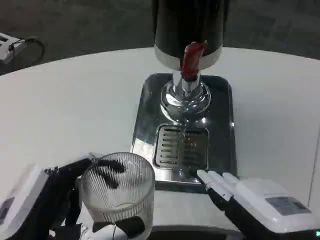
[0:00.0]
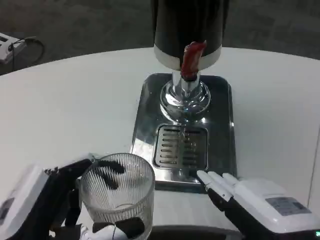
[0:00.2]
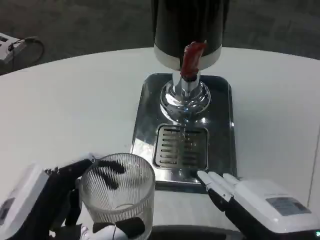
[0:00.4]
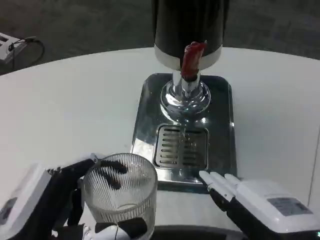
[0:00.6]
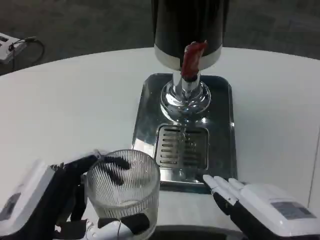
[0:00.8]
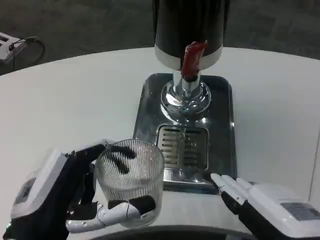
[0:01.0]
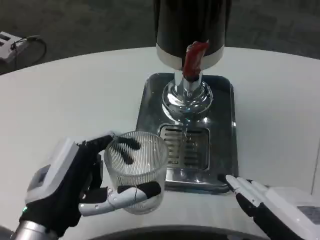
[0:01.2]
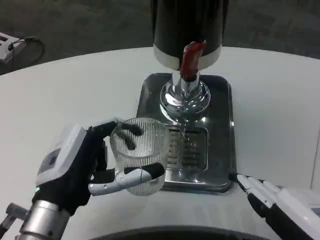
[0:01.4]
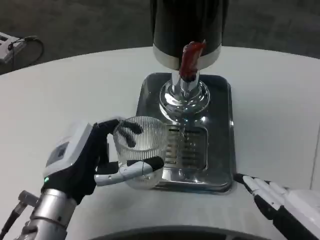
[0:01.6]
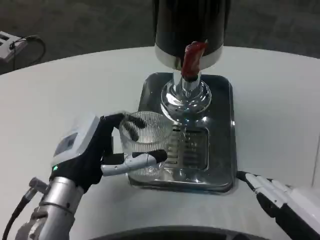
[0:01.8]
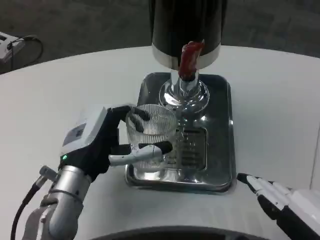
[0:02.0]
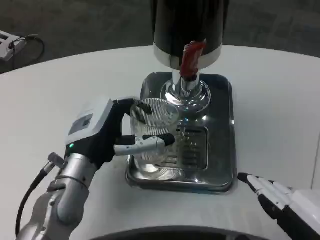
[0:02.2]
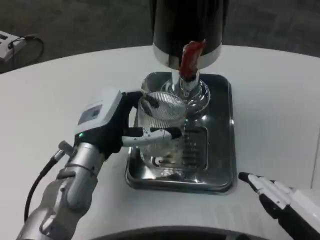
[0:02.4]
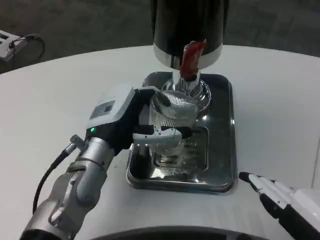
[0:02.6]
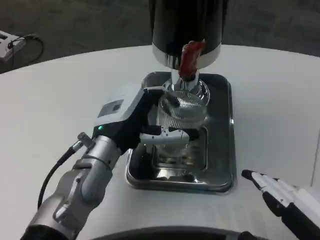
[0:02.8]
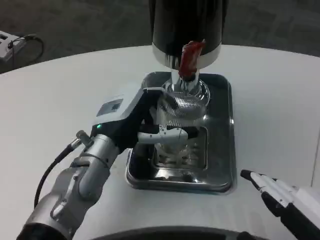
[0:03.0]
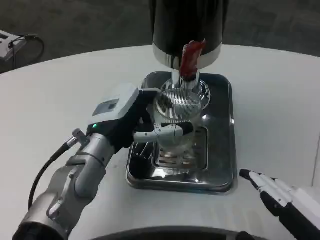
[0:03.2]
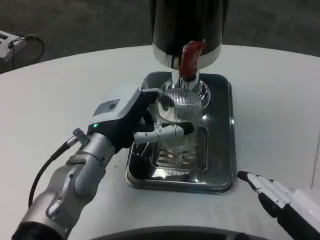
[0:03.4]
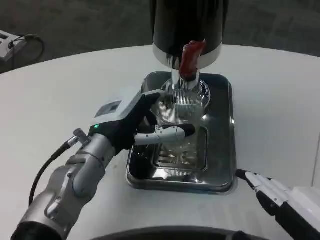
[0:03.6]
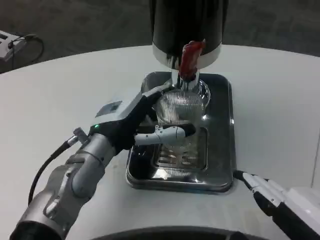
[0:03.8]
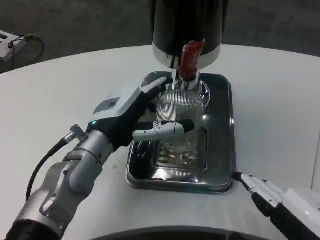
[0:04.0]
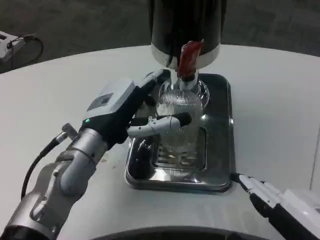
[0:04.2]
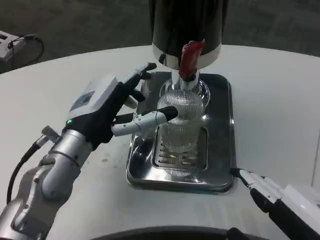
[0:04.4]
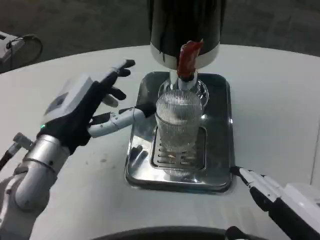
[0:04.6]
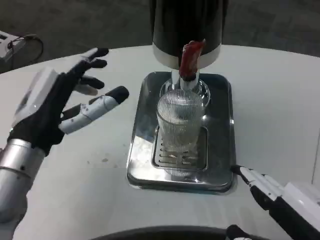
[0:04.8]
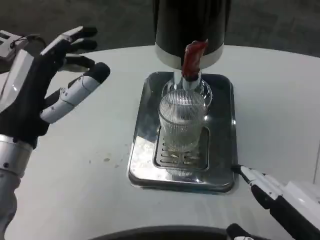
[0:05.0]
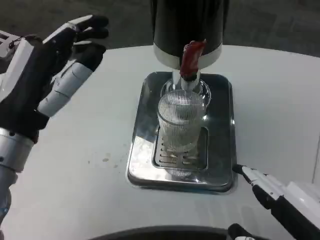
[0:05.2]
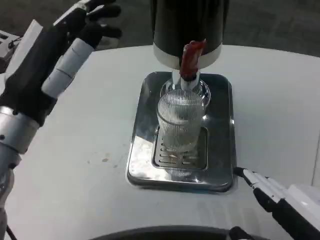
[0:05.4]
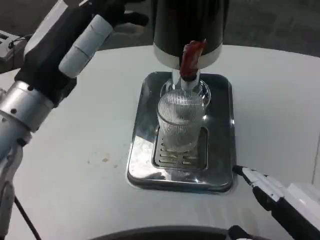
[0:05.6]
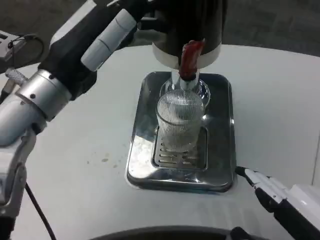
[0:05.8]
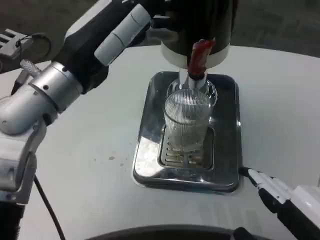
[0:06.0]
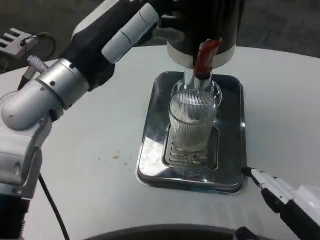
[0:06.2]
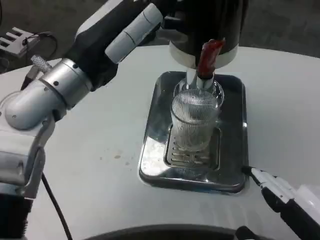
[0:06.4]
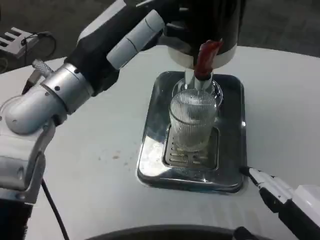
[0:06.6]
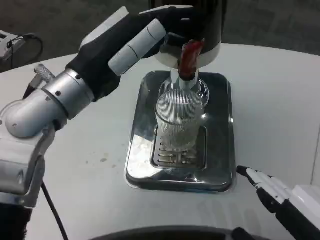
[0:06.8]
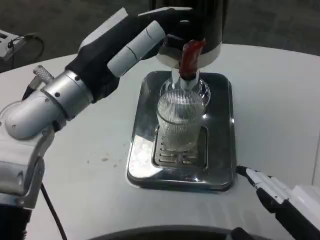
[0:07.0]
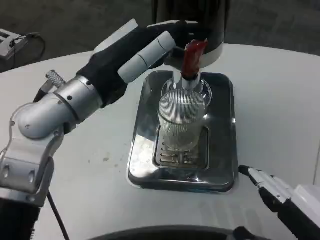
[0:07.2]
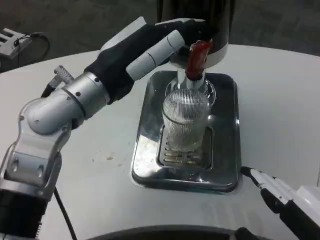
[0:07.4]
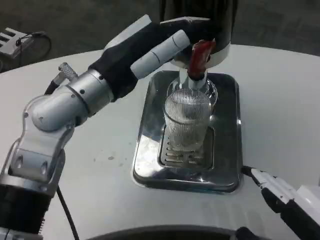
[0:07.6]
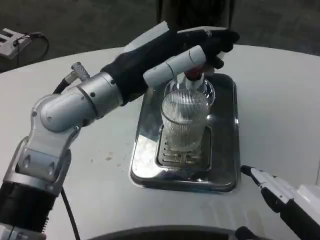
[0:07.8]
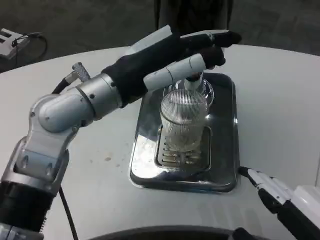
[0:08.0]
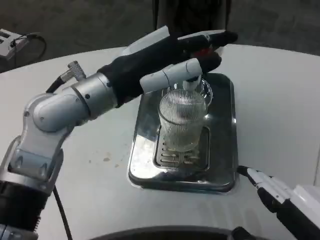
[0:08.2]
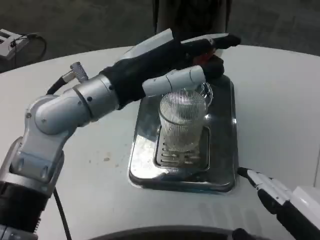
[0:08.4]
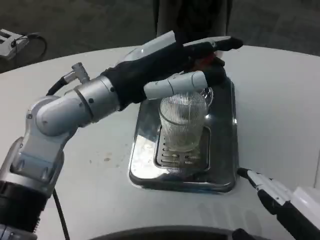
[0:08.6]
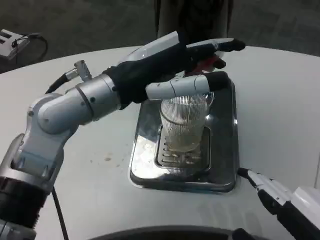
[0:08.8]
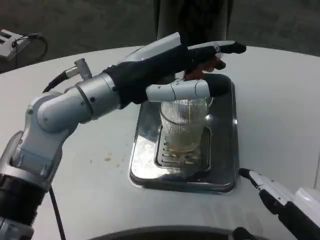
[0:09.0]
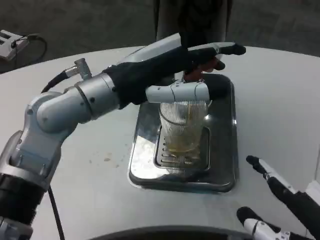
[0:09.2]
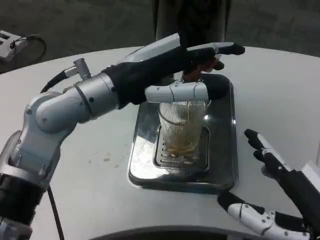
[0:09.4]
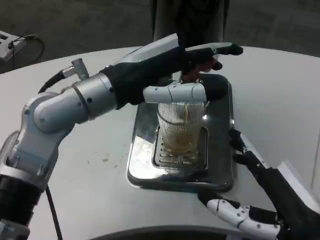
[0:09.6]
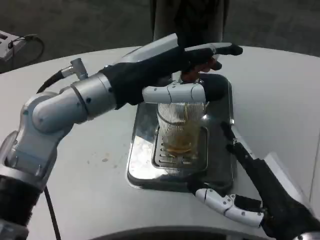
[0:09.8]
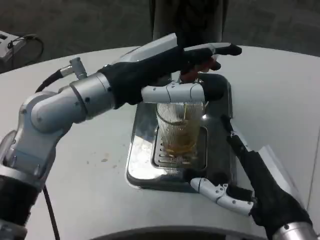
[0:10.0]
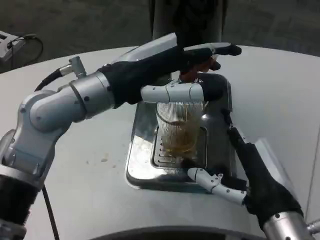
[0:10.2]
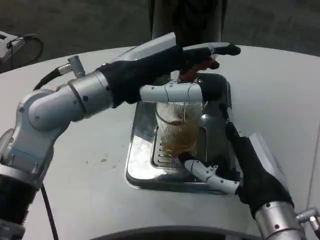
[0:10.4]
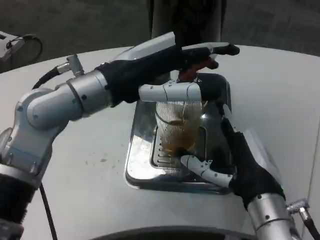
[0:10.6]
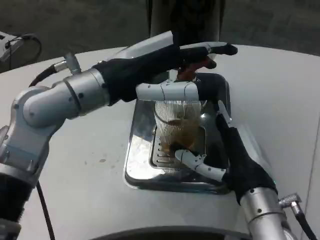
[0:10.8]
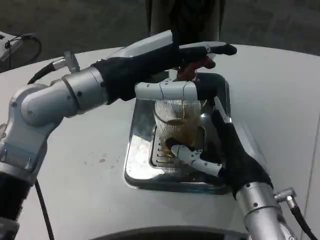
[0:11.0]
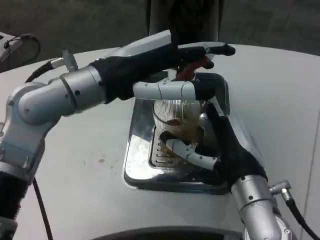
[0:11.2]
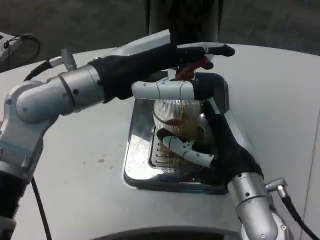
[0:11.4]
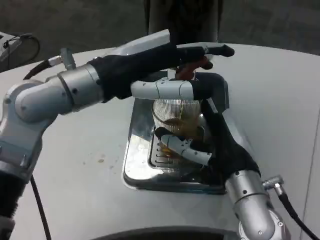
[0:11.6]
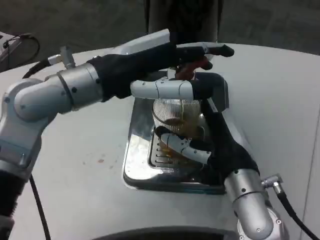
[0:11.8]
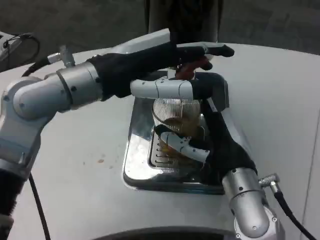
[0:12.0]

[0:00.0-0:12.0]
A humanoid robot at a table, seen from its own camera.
Task of the whole recording: Grasp the cup under the faucet to collect the drink, then remove the cup.
0:00.0 to 0:01.6: The left hand shifts about 10 cm forward.
0:01.6 to 0:03.0: The left hand travels forward by approximately 10 cm.
0:04.4 to 0:06.0: The left hand shifts some 10 cm upward.
0:09.0 to 0:10.4: The right hand shifts roughly 15 cm forward and to the left.
0:10.4 to 0:12.0: The right hand heads forward, covering approximately 5 cm.

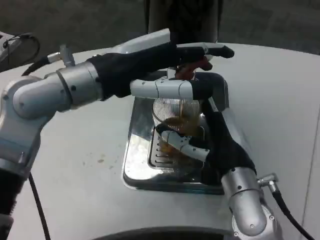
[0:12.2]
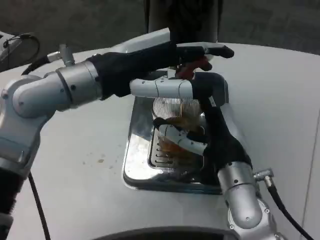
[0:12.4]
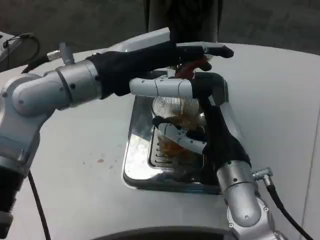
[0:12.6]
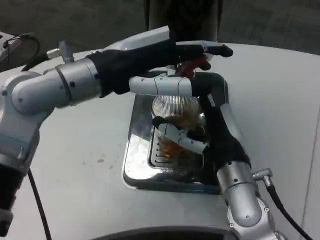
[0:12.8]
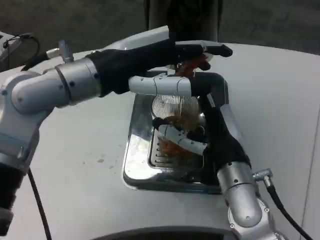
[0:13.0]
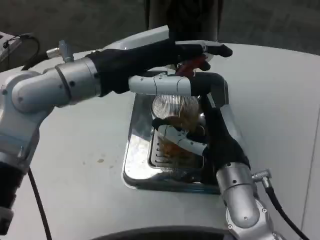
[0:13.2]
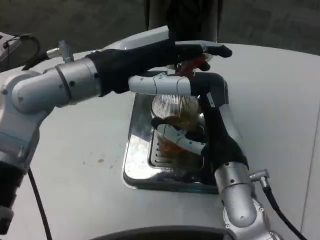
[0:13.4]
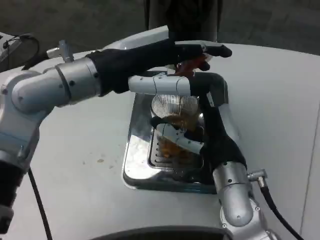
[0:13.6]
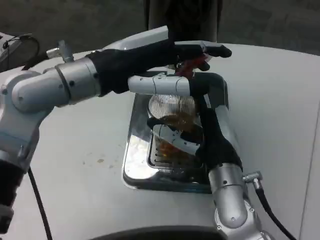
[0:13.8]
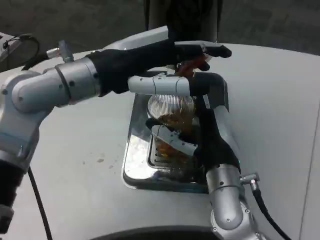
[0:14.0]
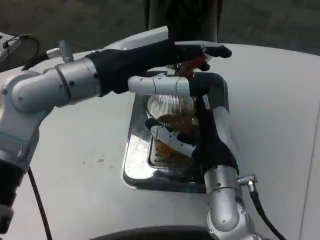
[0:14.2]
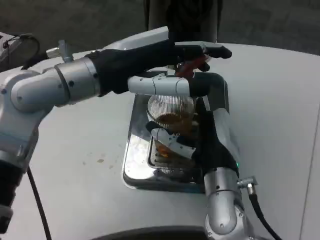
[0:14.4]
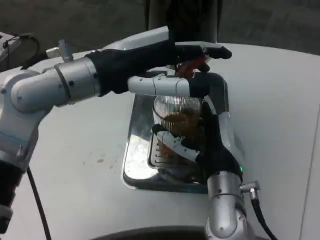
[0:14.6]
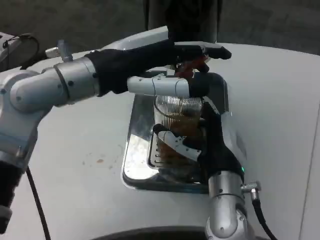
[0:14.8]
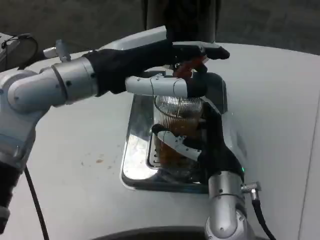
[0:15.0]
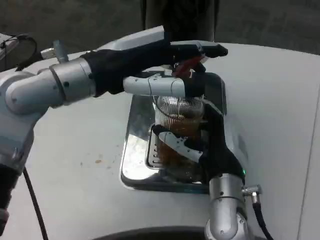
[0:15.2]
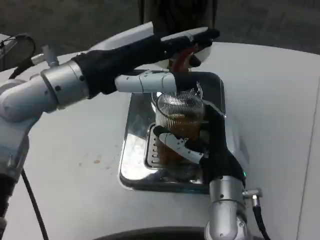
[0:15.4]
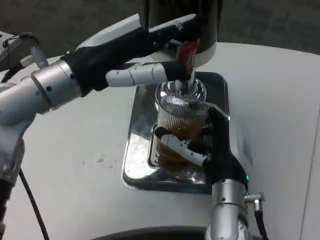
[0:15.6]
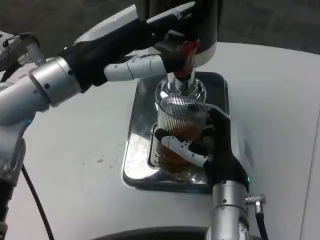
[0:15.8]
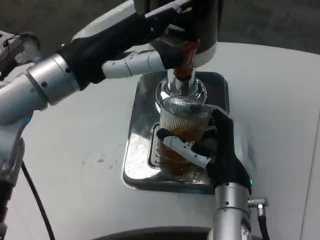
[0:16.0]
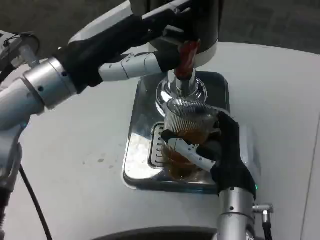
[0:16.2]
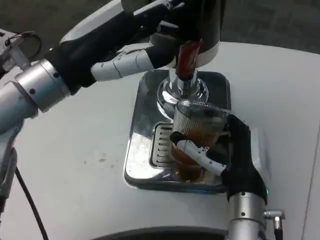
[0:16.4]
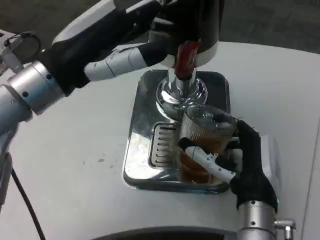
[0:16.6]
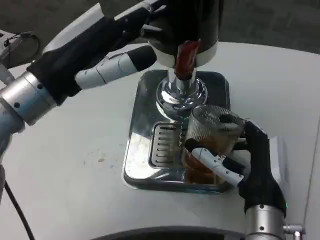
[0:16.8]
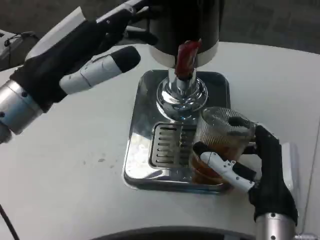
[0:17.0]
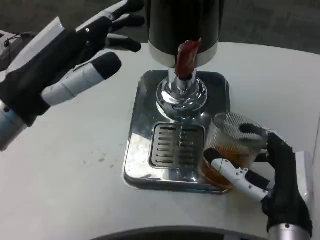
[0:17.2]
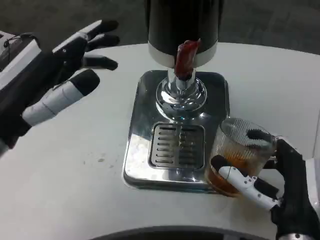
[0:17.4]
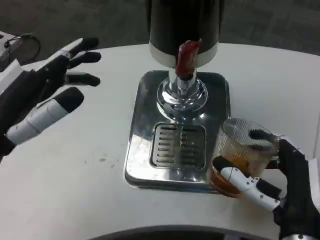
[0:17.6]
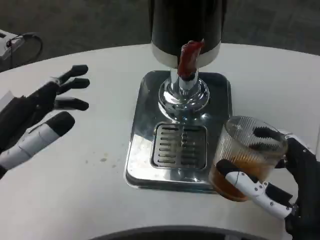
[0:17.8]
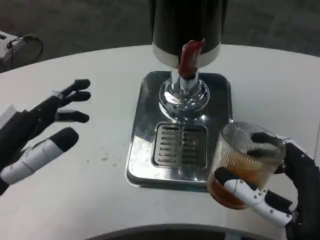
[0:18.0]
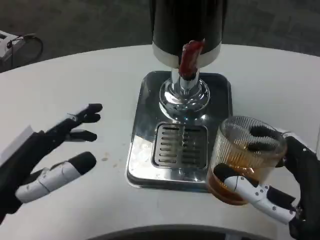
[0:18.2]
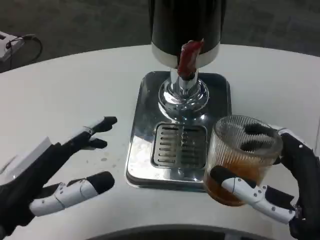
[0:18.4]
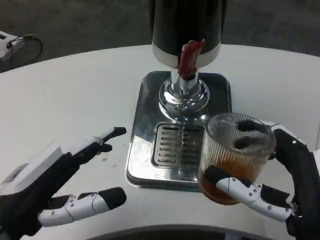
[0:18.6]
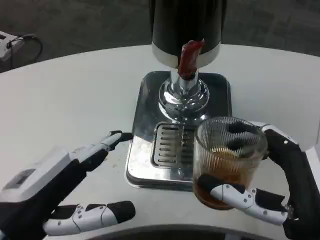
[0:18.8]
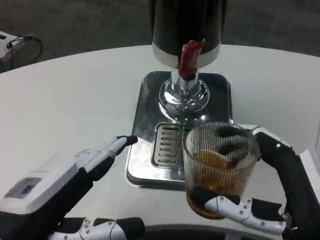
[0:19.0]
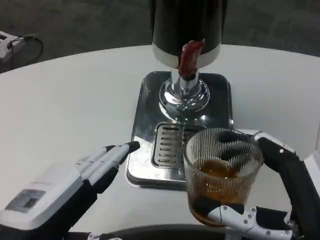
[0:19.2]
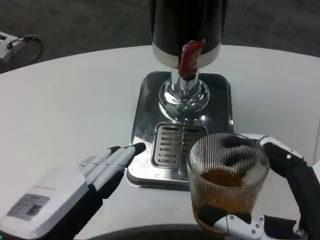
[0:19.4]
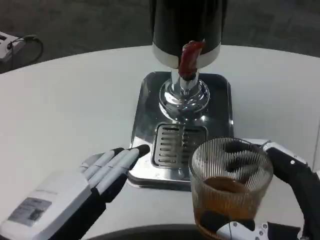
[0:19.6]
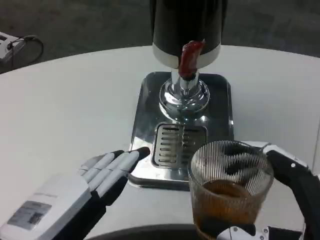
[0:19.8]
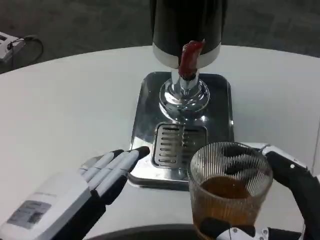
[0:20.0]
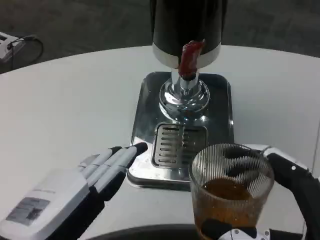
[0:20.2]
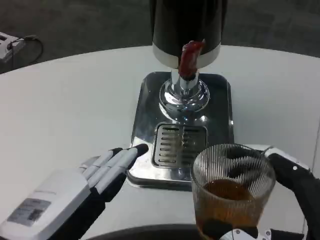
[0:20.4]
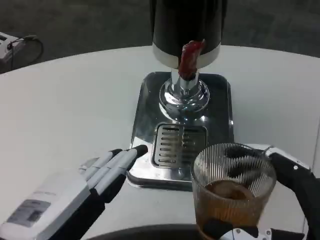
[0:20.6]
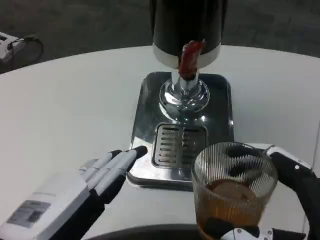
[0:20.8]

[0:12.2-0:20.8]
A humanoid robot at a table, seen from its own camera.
Task of the whole recording: Grasp the cup under the faucet to collect the drink, then remove the cup.
0:12.2 to 0:15.0: The hands make only small movements.
0:15.0 to 0:16.6: The right hand moves approximately 5 cm.
0:16.6 to 0:18.0: The right hand heads backward, covering roughly 10 cm; the left hand travels backward, downward and to the left by about 15 cm.
0:18.0 to 0:19.4: The right hand changes place by roughly 5 cm. Meanwhile the left hand travels backward and to the right by some 10 cm.
0:19.4 to 0:20.8: The hands make only small movements.

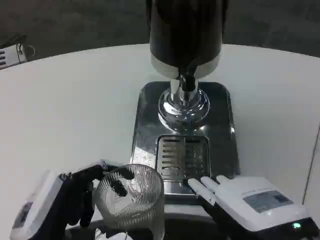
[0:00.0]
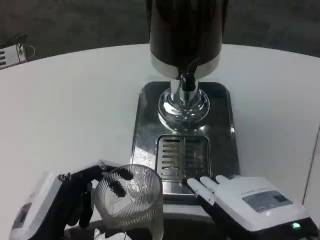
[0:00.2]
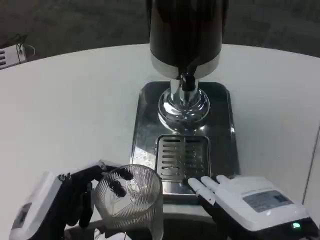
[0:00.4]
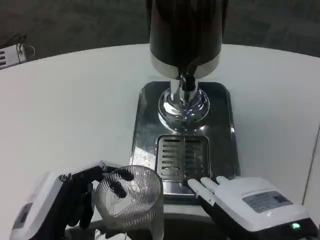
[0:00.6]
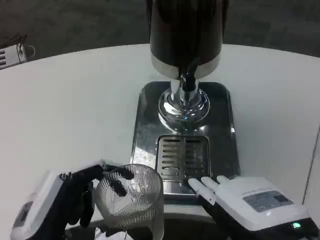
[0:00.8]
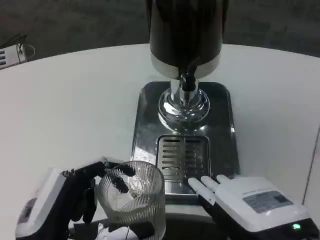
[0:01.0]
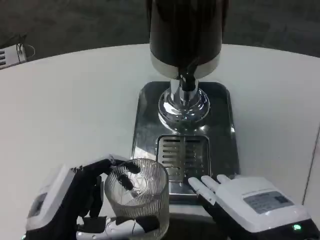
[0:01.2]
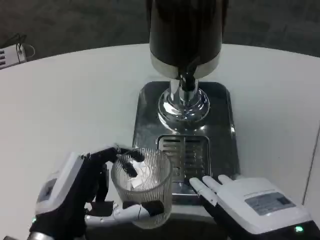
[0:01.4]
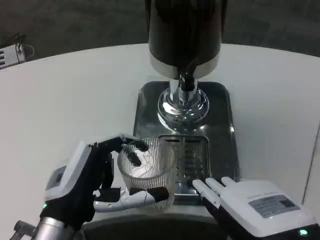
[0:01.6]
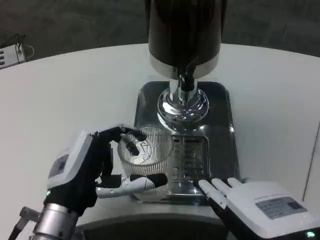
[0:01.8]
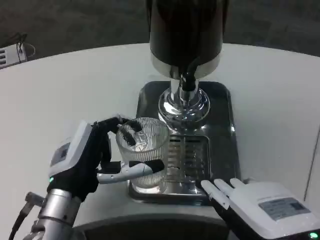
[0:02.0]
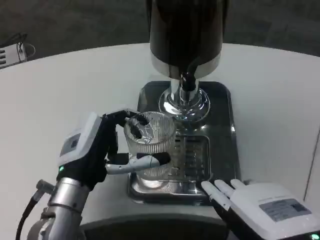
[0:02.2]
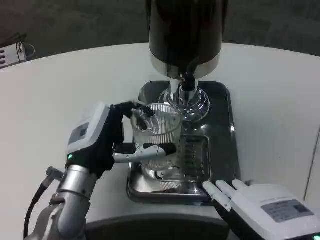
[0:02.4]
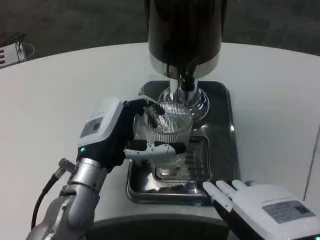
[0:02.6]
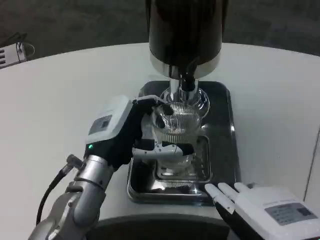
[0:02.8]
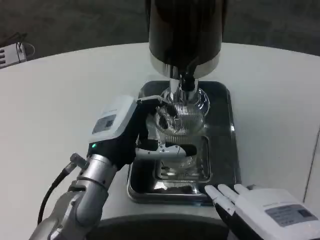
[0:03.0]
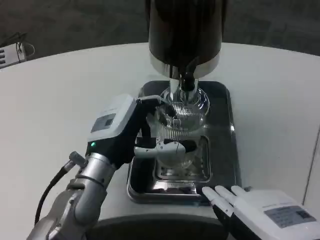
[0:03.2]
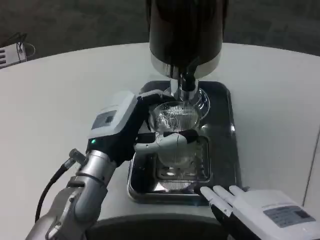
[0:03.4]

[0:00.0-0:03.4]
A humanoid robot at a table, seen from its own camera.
Task of the whole recording: Grasp the cup under the faucet to collect the drink, then remove the cup.
0:00.0 to 0:01.6: The left hand is displaced forward by about 5 cm.
0:01.6 to 0:03.4: The left hand heads forward, covering some 10 cm.
